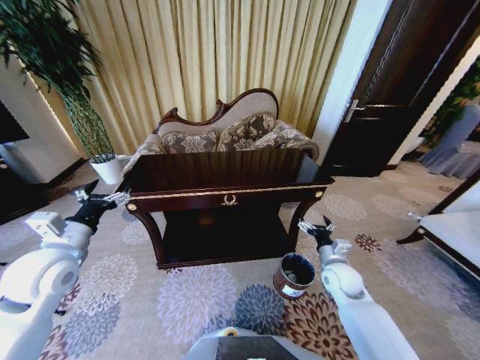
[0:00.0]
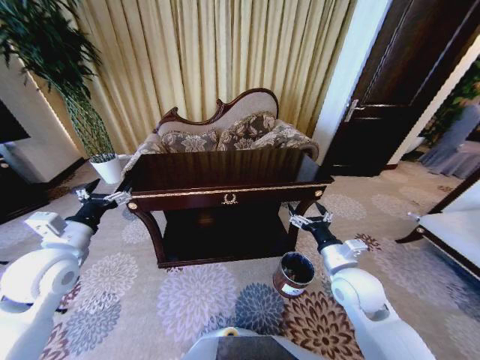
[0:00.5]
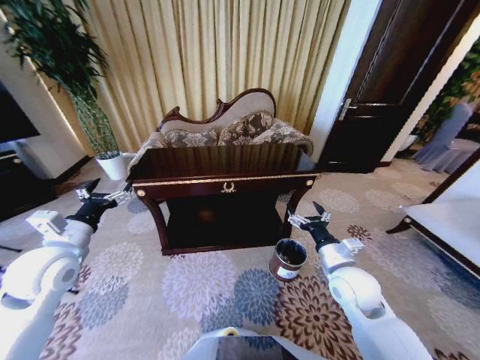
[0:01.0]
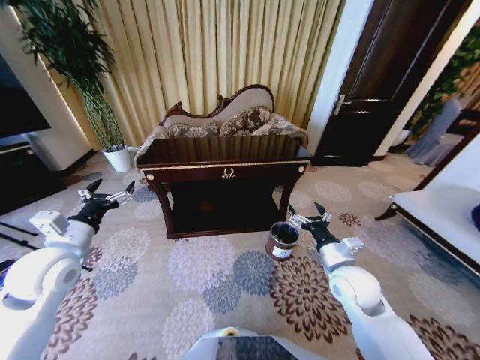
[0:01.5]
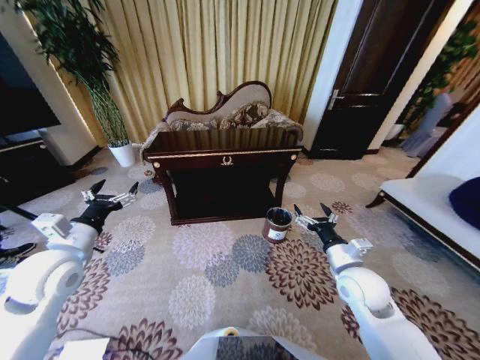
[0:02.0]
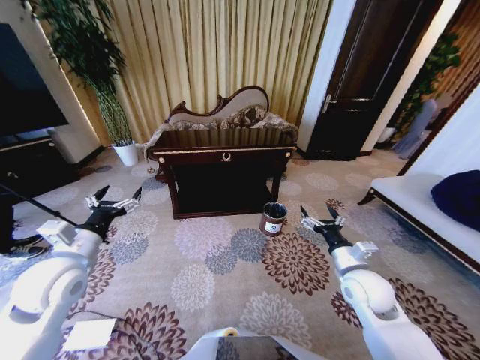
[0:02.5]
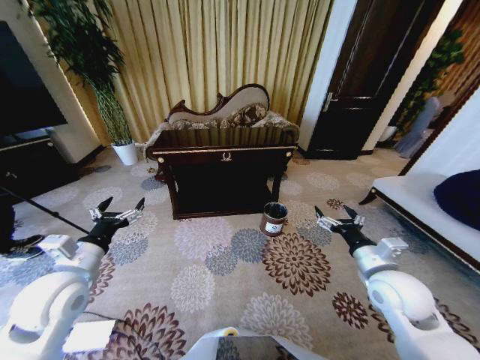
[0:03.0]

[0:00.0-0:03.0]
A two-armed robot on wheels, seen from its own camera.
Task of the whole recording: Move to the front of the table and place the trash on the table into the trash bin.
0:00.0 to 0:01.5: The right gripper heads upward, covering approximately 10 cm.
0:01.5 to 0:03.0: The right gripper goes roughly 5 cm to the right. The left gripper changes place by approximately 5 cm.
